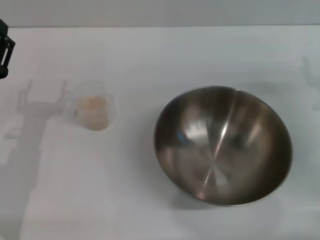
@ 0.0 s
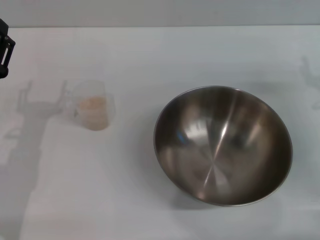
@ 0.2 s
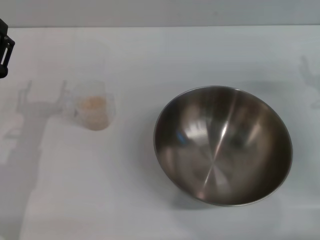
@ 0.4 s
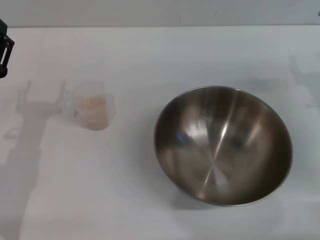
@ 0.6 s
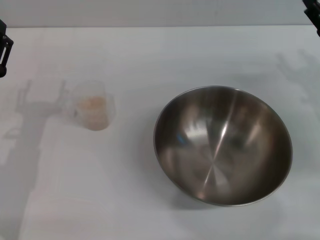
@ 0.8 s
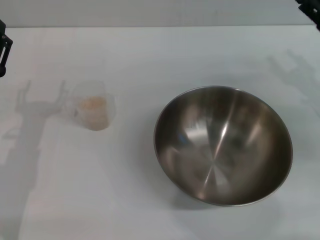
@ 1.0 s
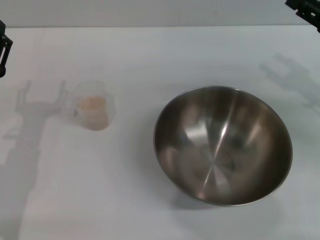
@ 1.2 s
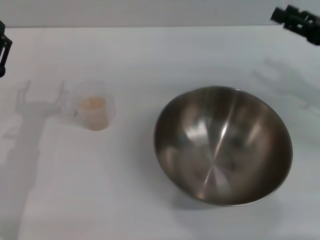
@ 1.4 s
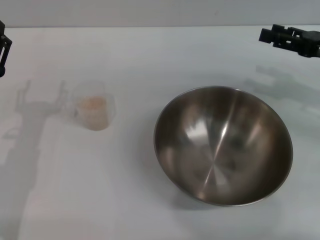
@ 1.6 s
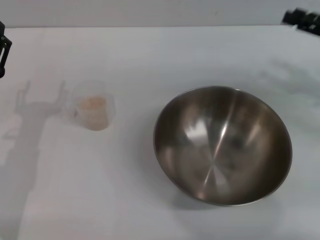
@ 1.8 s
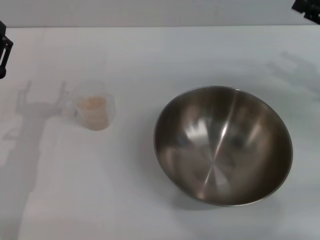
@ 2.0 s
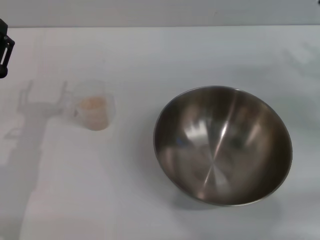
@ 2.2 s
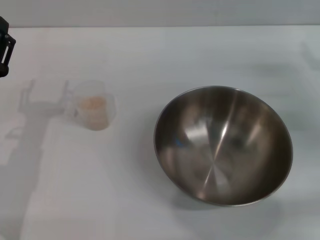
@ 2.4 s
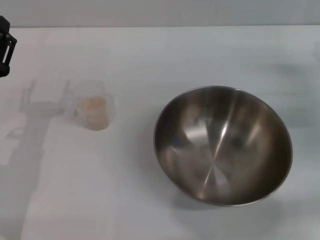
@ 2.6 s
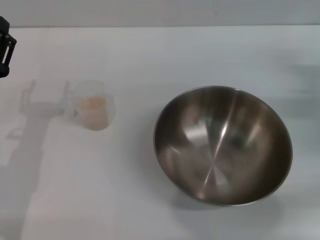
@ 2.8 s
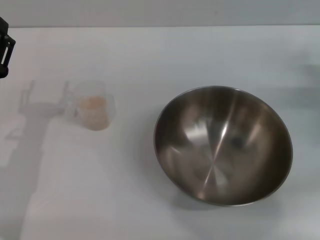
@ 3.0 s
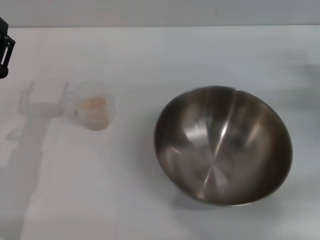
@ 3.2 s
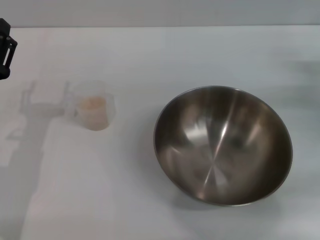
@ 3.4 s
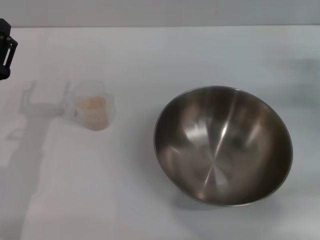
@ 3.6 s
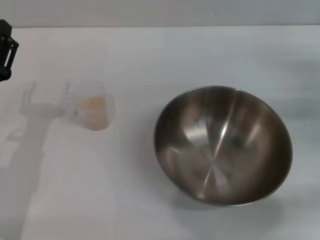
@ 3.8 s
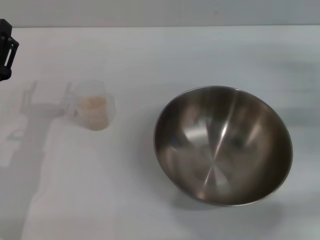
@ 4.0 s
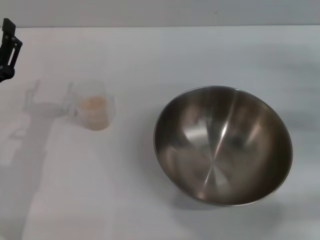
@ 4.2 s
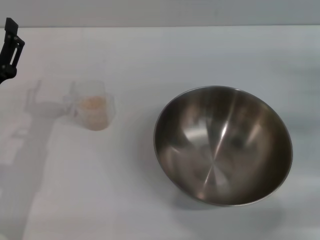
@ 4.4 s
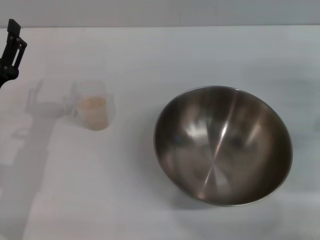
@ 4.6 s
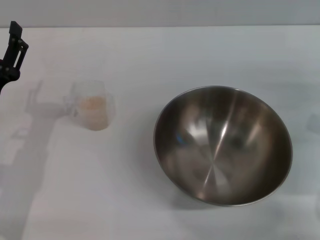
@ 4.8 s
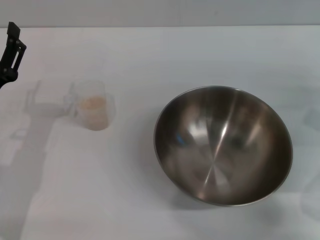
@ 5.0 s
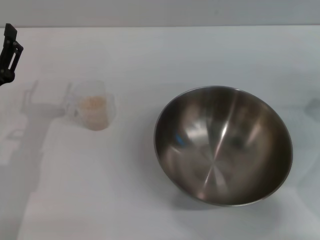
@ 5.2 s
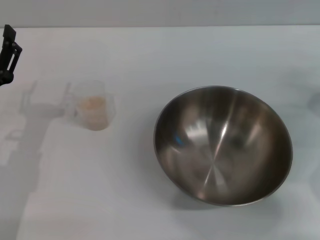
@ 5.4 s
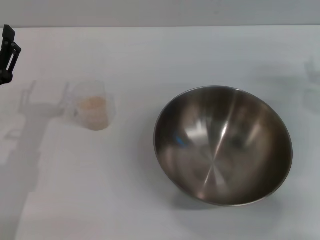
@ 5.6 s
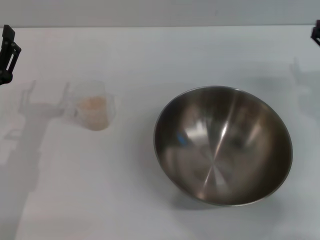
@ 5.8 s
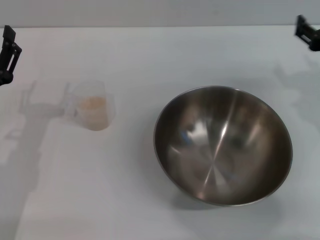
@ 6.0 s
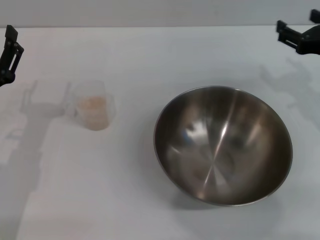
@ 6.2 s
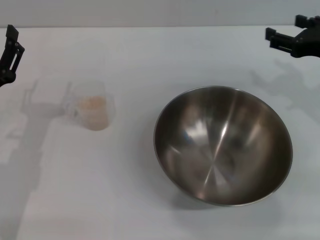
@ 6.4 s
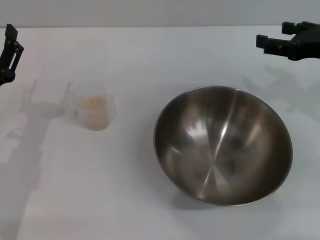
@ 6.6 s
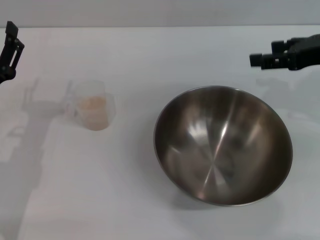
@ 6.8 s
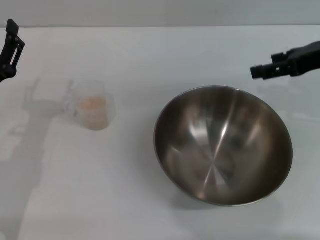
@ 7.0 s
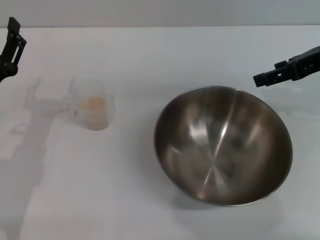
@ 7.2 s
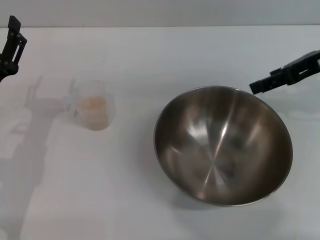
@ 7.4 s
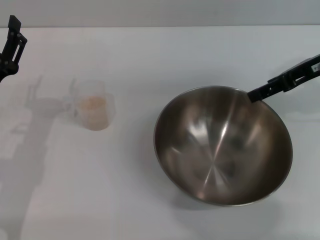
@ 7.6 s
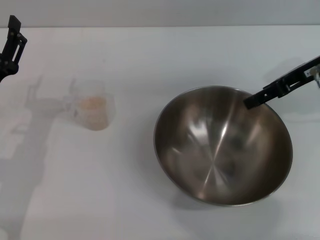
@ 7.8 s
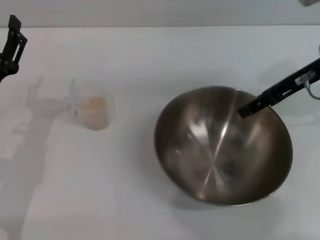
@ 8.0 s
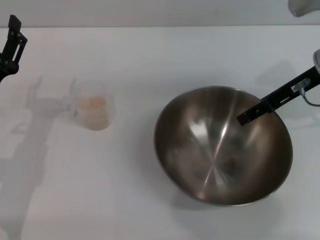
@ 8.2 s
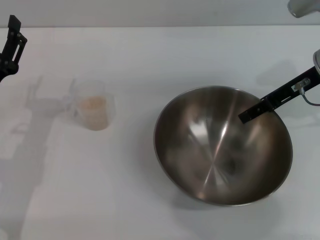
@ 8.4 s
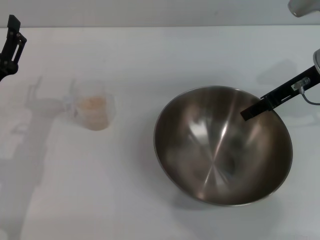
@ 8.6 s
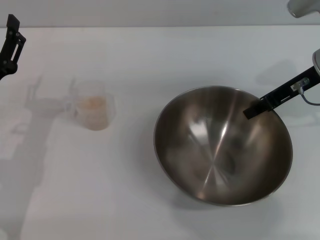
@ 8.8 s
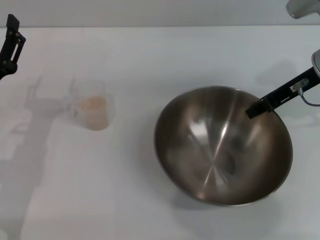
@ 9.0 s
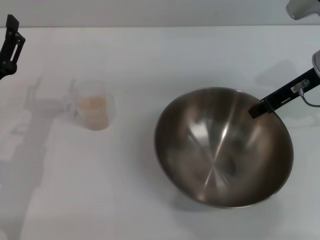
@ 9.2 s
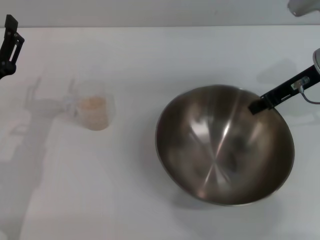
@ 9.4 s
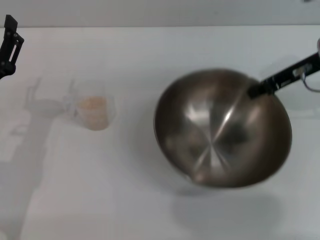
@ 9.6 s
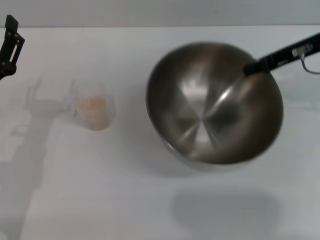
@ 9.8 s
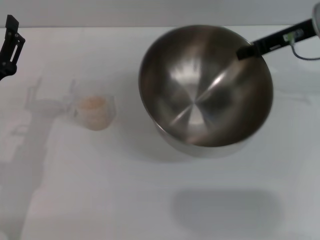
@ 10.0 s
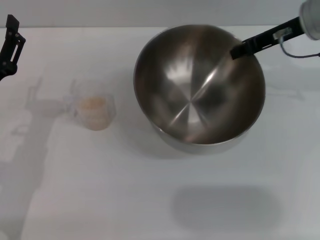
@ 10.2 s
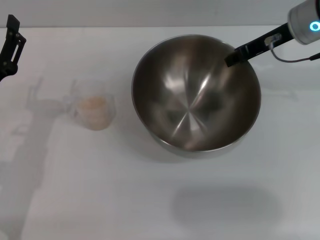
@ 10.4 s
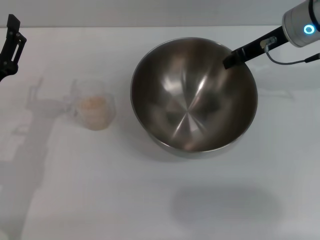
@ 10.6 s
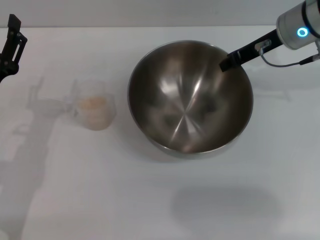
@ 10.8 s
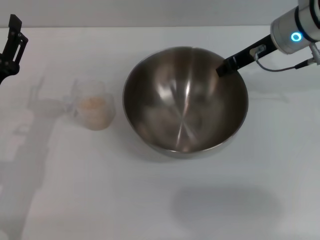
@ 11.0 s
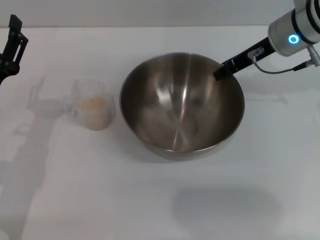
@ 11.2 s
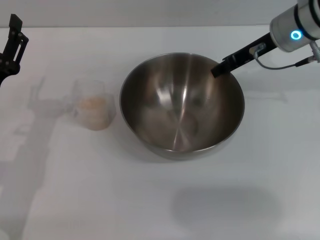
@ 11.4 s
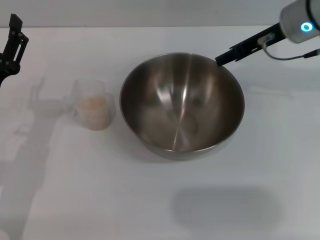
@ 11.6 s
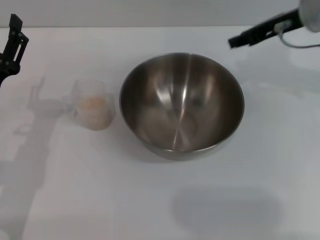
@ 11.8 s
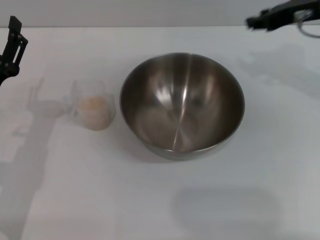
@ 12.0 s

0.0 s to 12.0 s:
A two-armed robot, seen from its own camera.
Task of the whole recording: Place the bowl in the middle of the table with one hand and pour the rice from the grain cup into it with the other hand.
Step, 0.0 to 9.8 s: Pick up the bowl with the right gripper.
Step, 10.0 to 11.6 s: Place the bowl in the center of view with the right gripper.
0.0 to 1.6 s: The right gripper moves upward and forward, some 10 cm.
1.6 to 3.0 s: The right gripper is displaced downward by about 5 cm.
3.0 to 4.4 s: The right gripper changes place by approximately 5 cm.
4.4 to 6.0 s: The right gripper is displaced to the left and upward by some 10 cm.
6.0 to 7.6 s: The right gripper shifts about 10 cm upward and forward.
7.6 to 9.0 s: The right gripper closes its fingers.
9.0 to 10.4 s: The right gripper ends up roughly 5 cm from where it was, and closes up.
10.4 to 12.0 s: The right gripper moves approximately 5 cm, and opens its fingers.

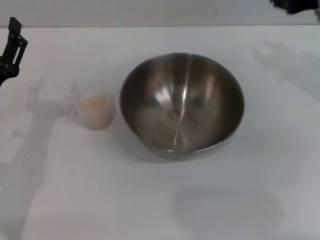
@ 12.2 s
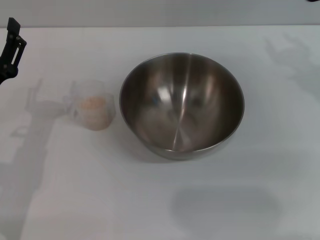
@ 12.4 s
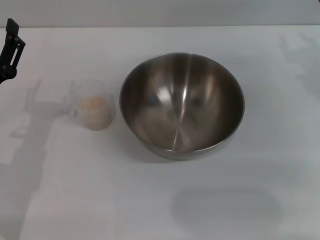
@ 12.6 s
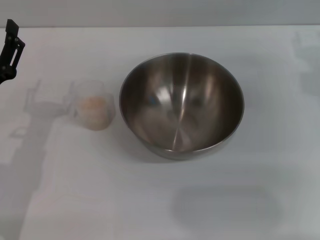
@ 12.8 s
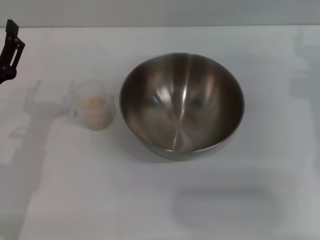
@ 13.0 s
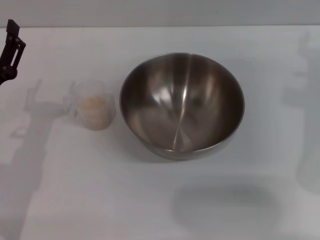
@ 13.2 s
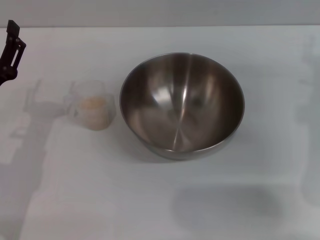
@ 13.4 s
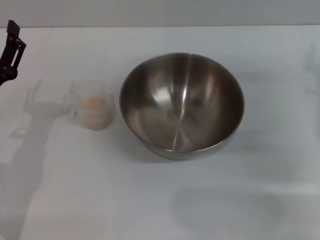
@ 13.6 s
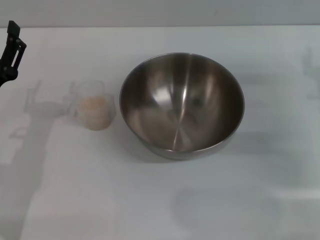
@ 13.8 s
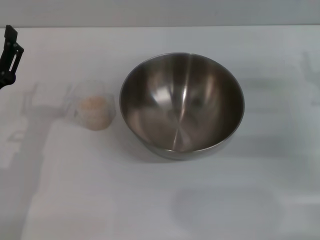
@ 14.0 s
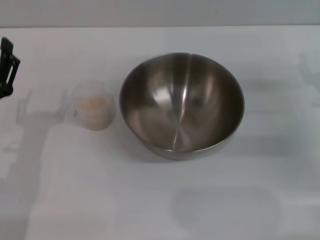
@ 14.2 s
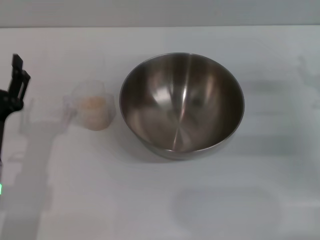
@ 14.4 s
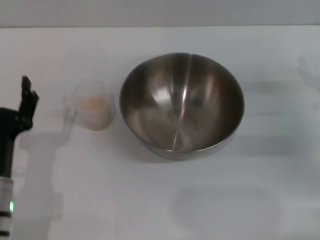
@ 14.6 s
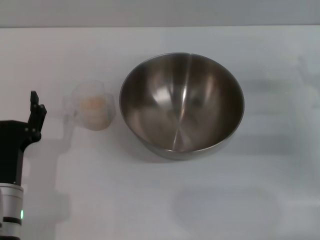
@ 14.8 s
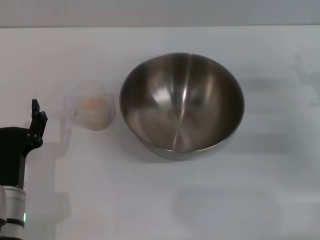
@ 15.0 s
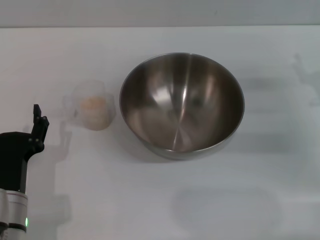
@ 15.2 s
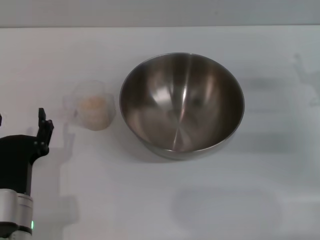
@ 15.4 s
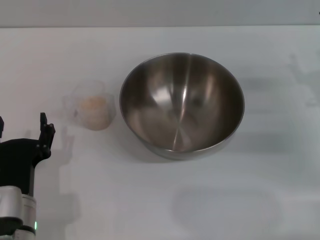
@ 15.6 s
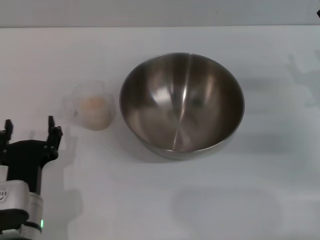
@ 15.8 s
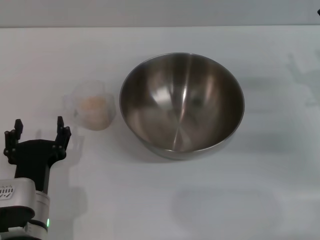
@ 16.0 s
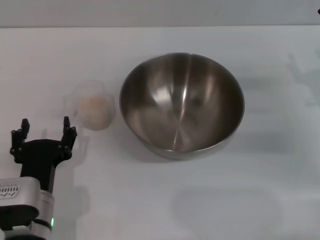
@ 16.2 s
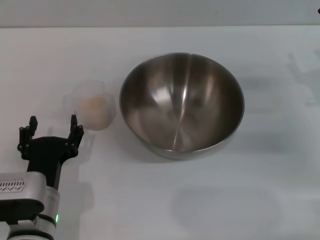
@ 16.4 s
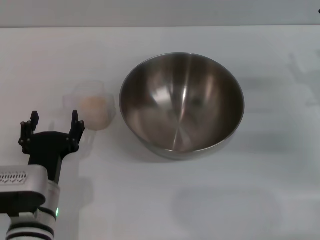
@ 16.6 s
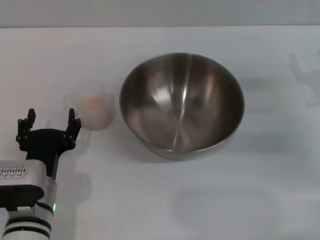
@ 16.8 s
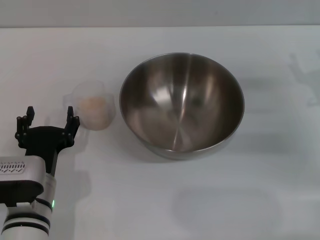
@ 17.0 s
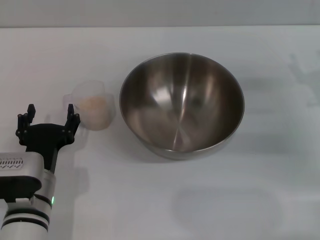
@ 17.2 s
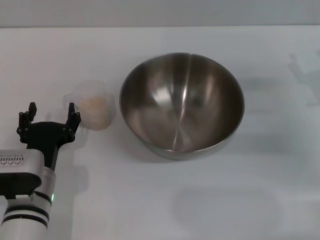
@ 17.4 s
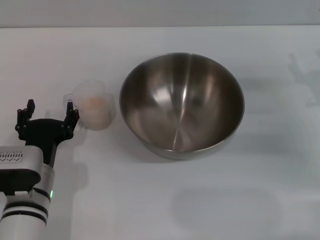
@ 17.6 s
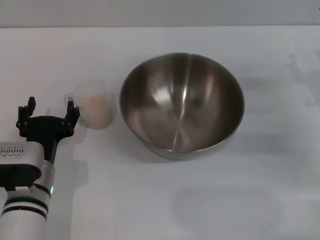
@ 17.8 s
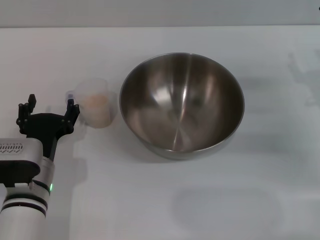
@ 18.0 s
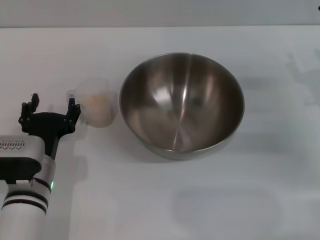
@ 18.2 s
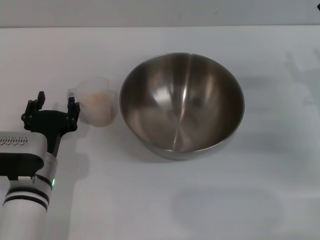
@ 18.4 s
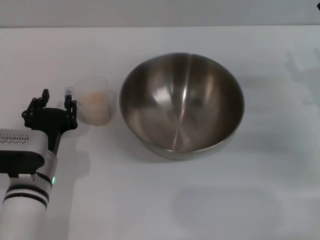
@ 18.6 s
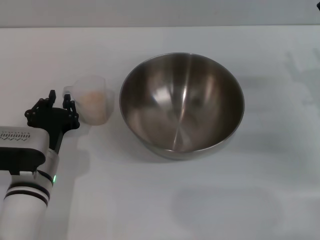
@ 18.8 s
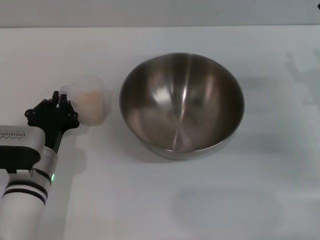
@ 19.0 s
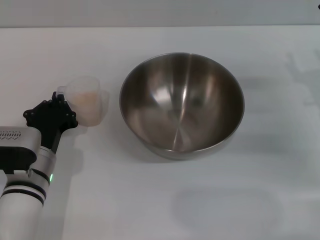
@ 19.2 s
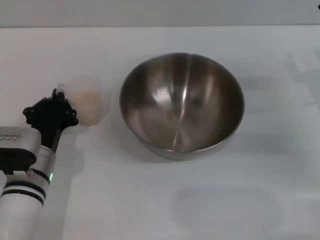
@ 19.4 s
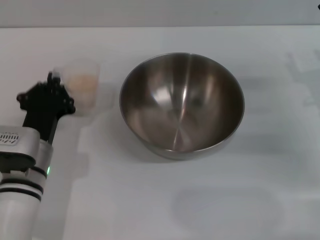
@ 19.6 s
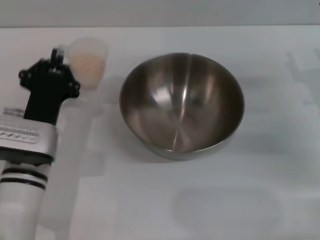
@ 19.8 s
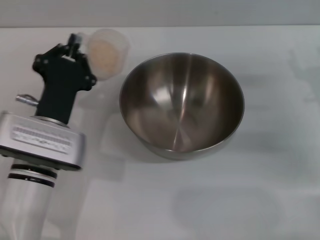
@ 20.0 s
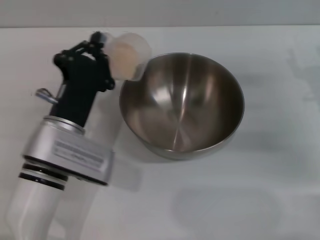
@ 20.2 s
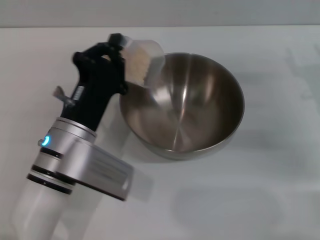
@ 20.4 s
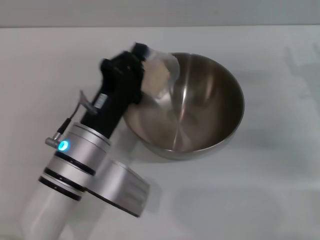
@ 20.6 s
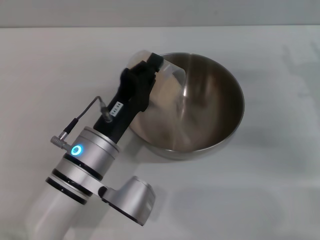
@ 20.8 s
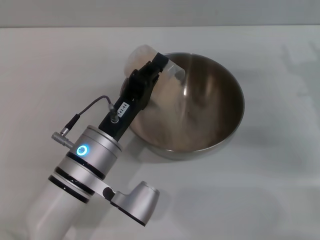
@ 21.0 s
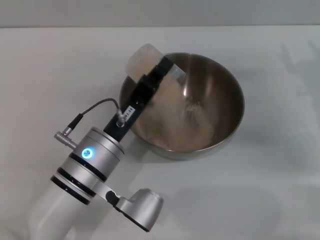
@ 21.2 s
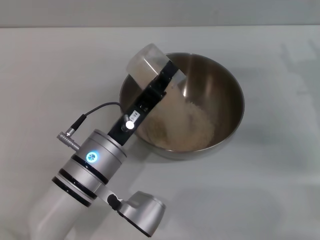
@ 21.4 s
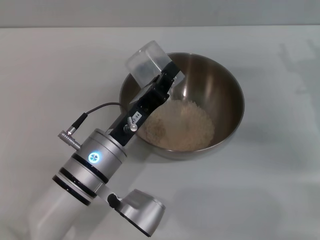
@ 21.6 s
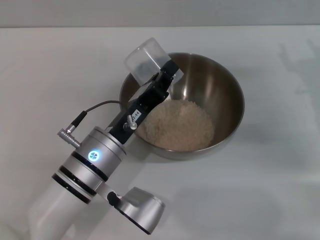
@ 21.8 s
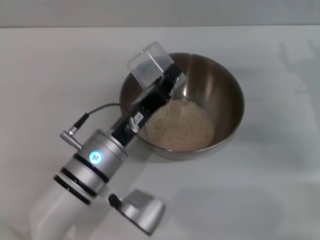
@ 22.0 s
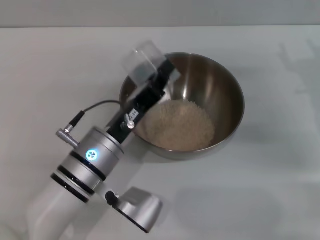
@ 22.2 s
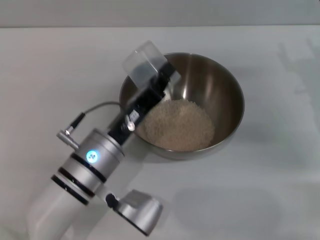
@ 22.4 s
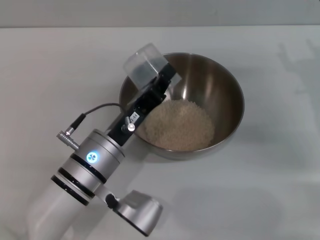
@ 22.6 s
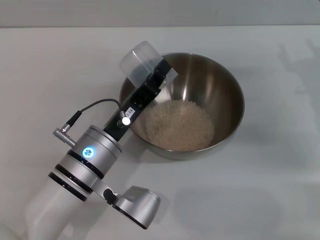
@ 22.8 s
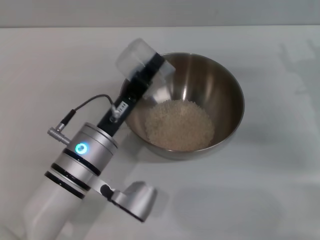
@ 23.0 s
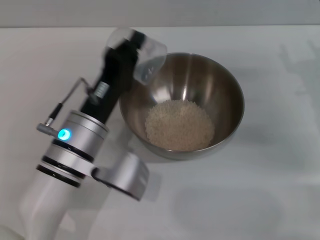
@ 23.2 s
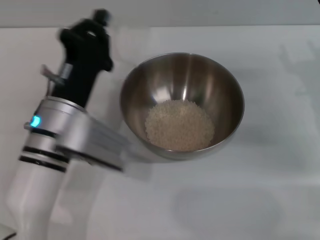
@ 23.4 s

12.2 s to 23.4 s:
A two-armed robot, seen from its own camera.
Task of the whole recording: Place the bowl in the middle of the table with one hand and pour the rice from the grain cup into it with the other hand.
Step, 12.2 to 19.8 s: Pick up the cup with rice in it with the left gripper.
Step, 20.0 to 22.0 s: Pour the rice from the cup into the bowl with the left gripper.
12.2 to 13.8 s: The right gripper shifts roughly 15 cm downward and backward.
13.8 to 15.4 s: The left gripper travels backward and to the right by approximately 10 cm.
15.4 to 17.0 s: The grippers move only a little.
17.0 to 18.6 s: The grippers move only a little.
18.6 to 20.2 s: The left gripper goes some 5 cm upward, and closes.
21.8 to 23.4 s: The left gripper changes place by roughly 5 cm.
